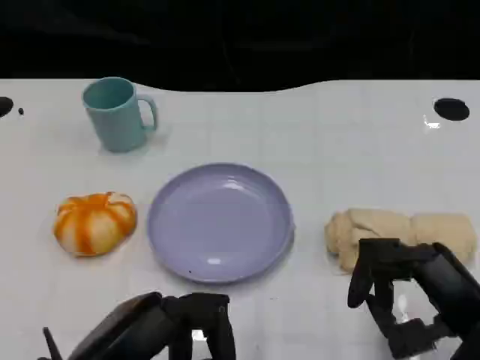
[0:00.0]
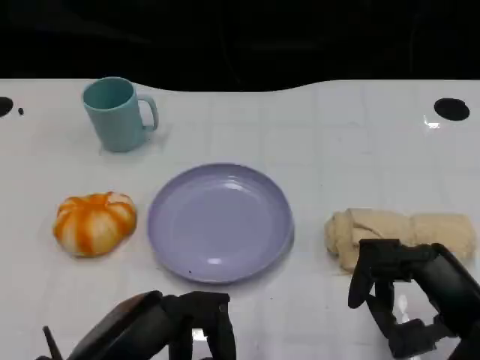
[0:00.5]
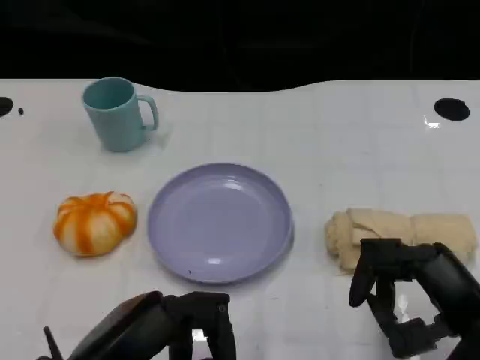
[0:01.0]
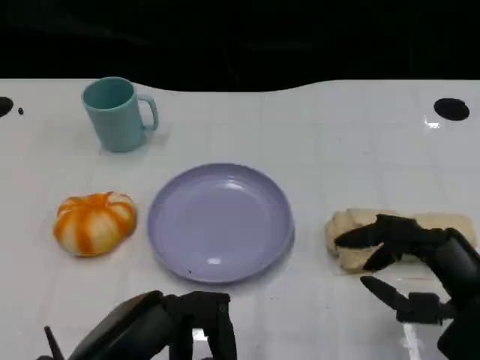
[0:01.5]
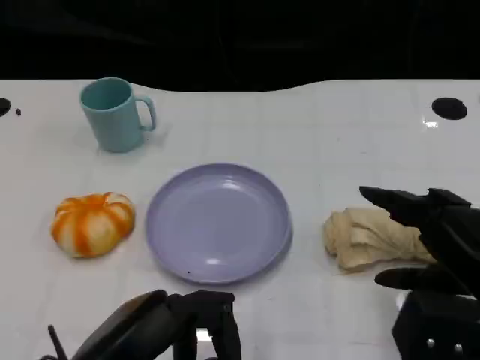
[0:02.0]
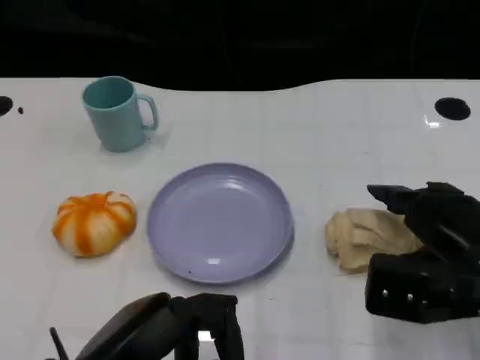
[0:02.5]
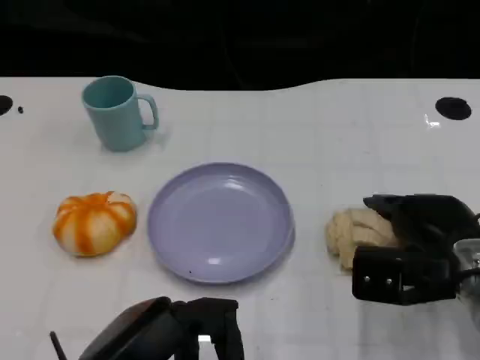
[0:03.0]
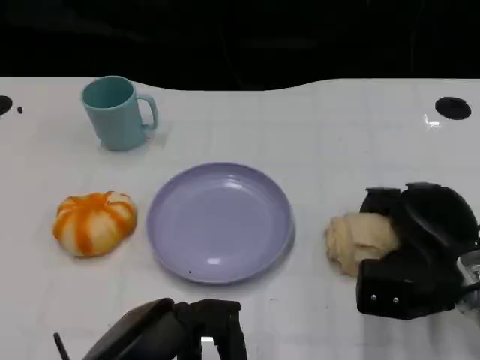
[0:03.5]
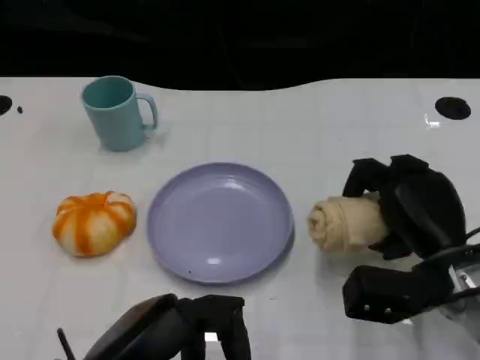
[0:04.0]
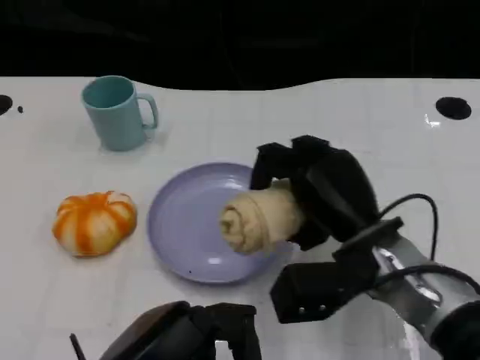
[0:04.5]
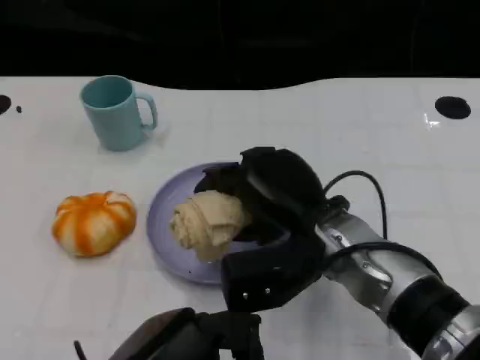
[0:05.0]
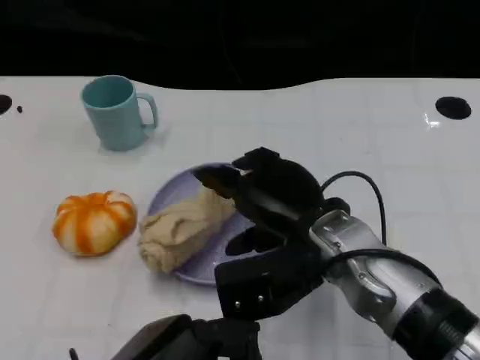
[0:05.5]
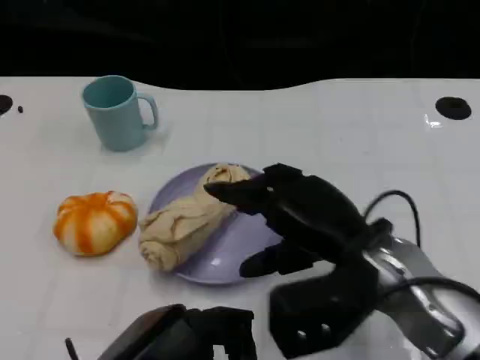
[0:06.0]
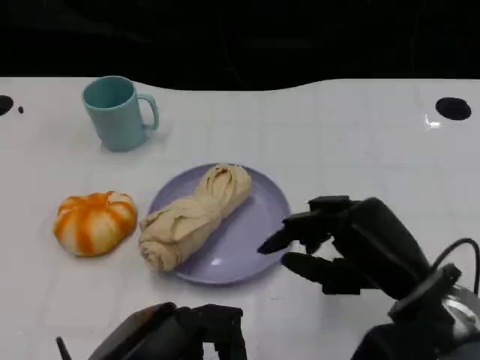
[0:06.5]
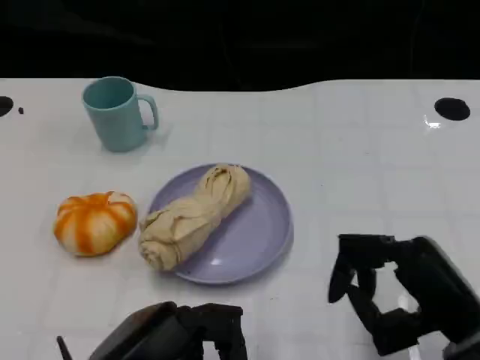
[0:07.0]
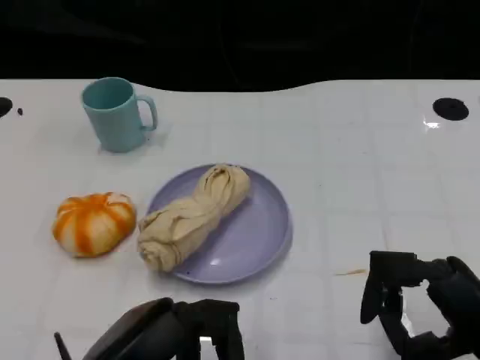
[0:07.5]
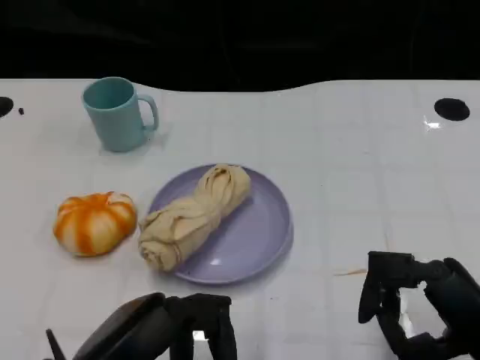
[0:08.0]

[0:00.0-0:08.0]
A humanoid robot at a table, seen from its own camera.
Task of the whole recording: Grasp the towel on the left side of the plate with the left hand and place it into the plate.
0:02.0 to 0:04.0: The right hand is displaced forward and downward by about 10 cm.
0:04.0 to 0:06.0: The right hand goes roughly 10 cm to the left and upward.
0:06.0 to 0:08.0: The right hand heads to the right and backward, covering approximately 15 cm.

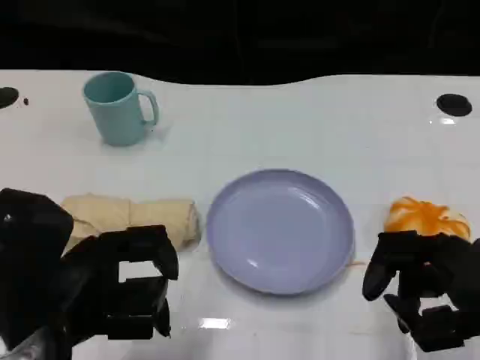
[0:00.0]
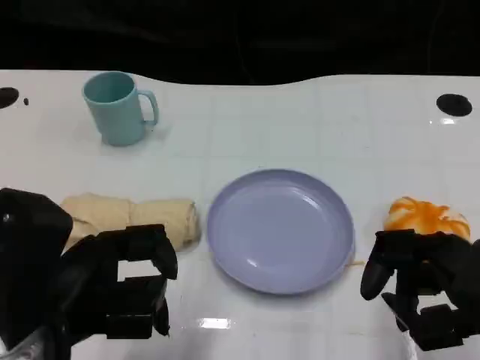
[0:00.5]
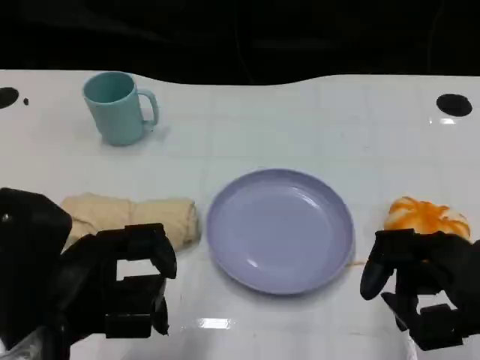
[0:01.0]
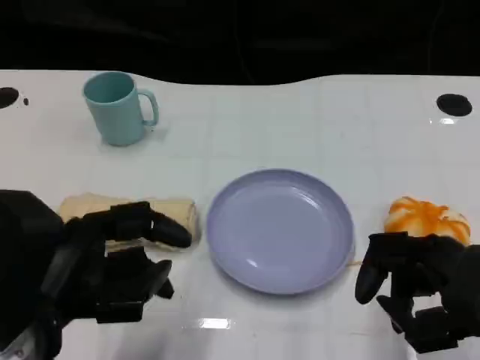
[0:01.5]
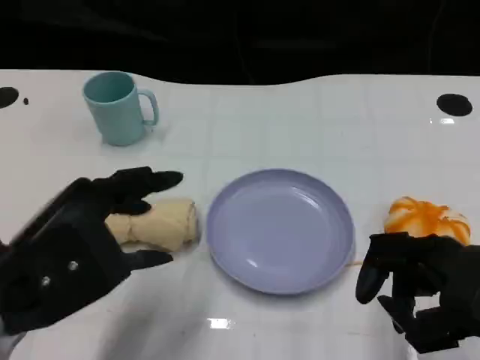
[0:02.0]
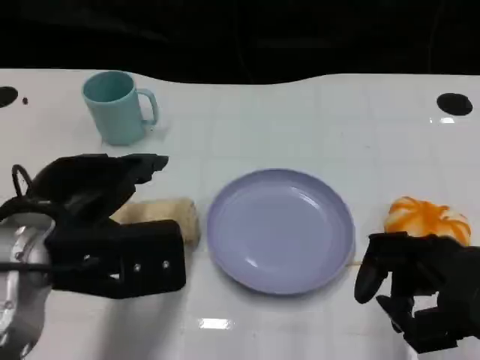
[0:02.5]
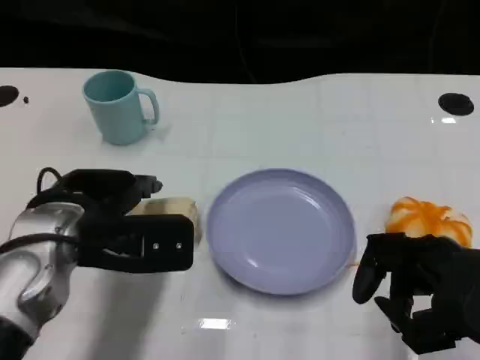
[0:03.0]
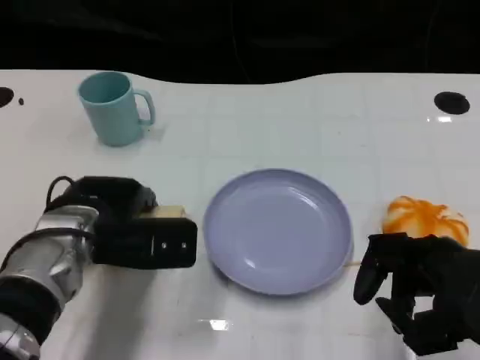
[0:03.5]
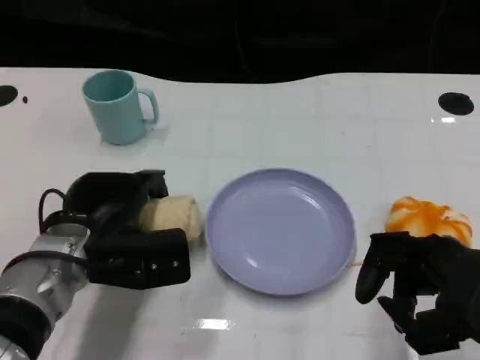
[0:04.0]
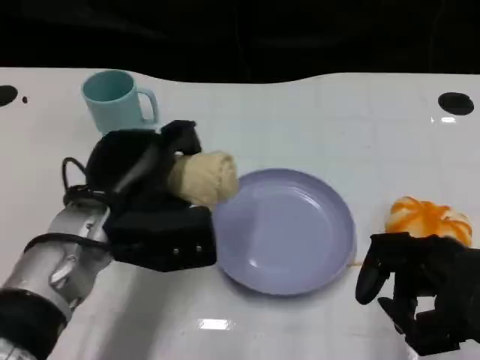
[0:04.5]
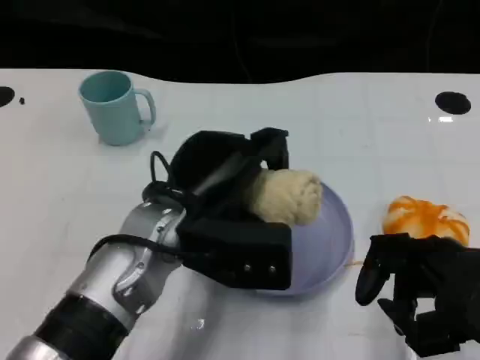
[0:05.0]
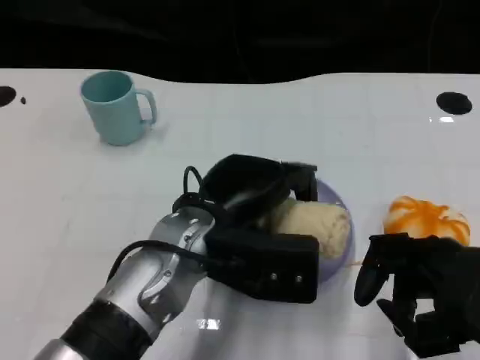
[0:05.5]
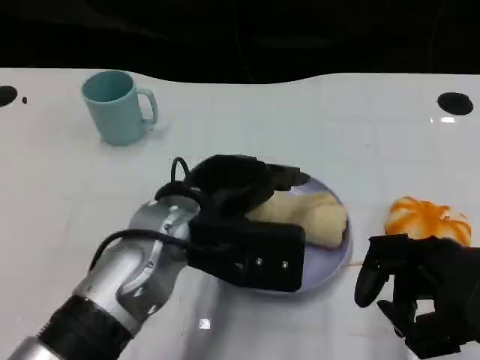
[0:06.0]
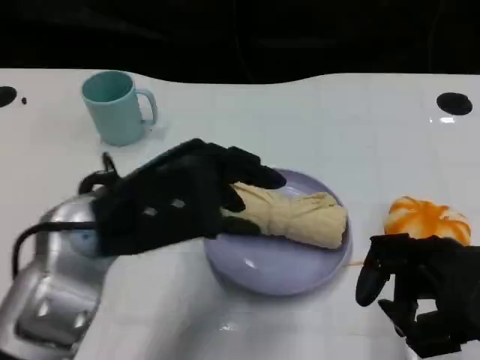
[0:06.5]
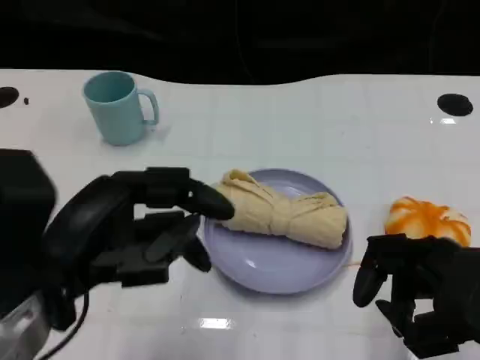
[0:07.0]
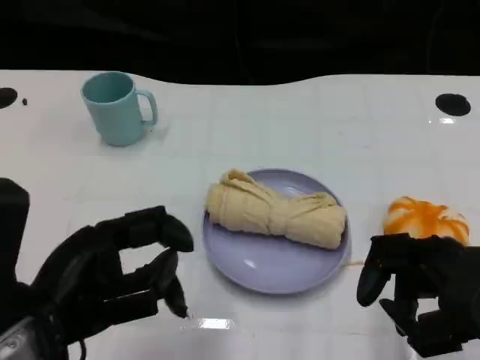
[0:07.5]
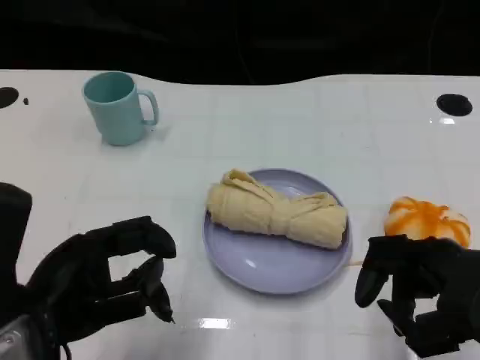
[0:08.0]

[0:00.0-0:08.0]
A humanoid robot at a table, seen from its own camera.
Task of the whole recording: Grasp the towel on the left side of the plate with the left hand and place it into the plate.
0:02.0 to 0:04.0: The left hand travels forward and downward by some 15 cm.
0:04.0 to 0:06.0: The left hand is displaced to the right and upward by about 10 cm.
0:06.0 to 0:08.0: The left hand shifts approximately 15 cm to the left and backward.

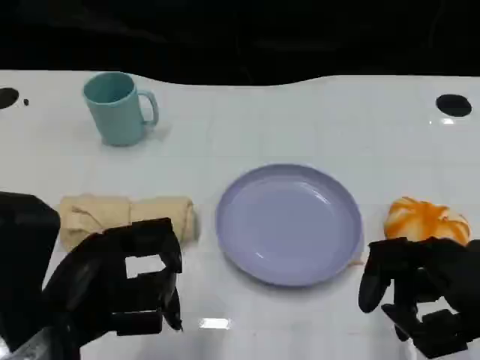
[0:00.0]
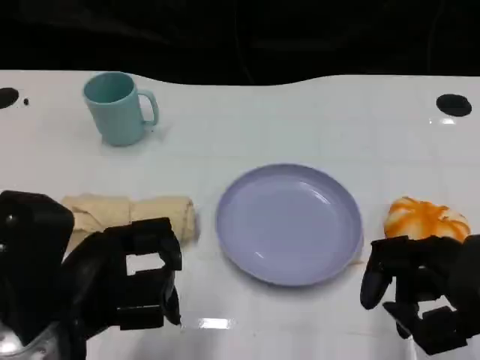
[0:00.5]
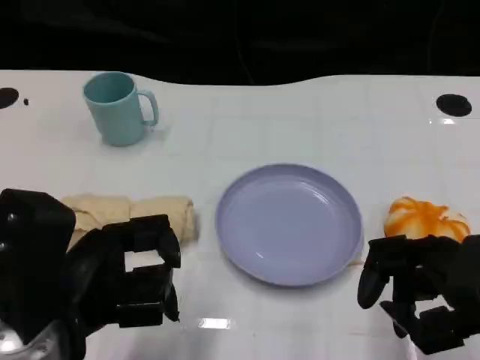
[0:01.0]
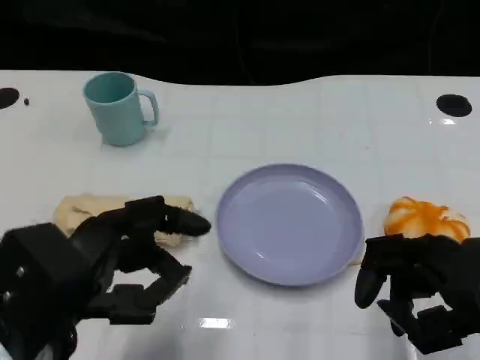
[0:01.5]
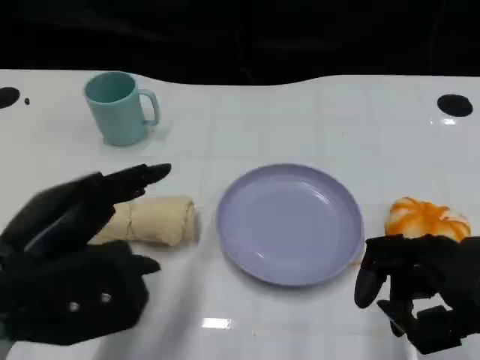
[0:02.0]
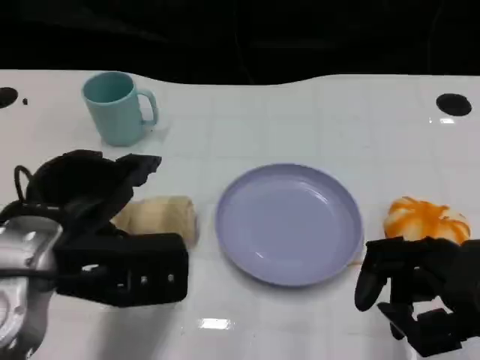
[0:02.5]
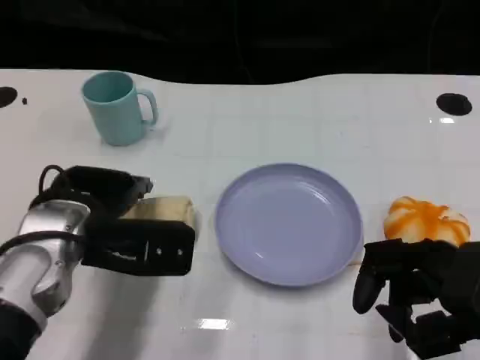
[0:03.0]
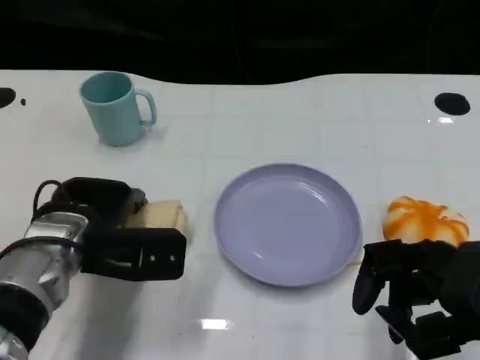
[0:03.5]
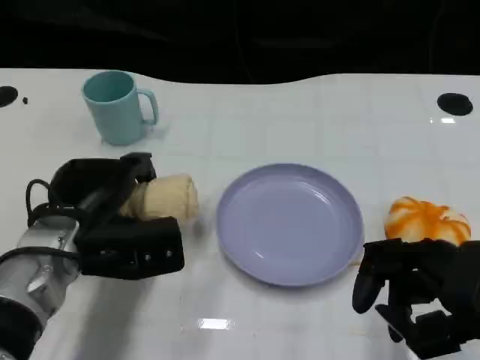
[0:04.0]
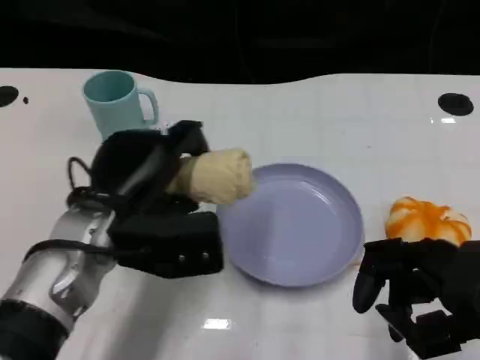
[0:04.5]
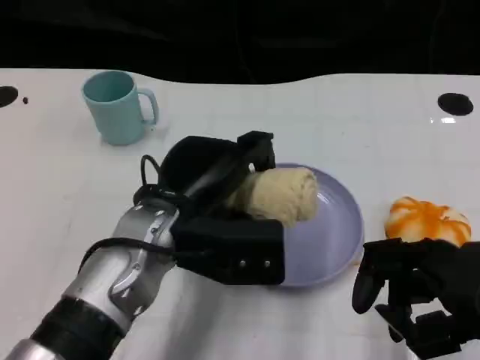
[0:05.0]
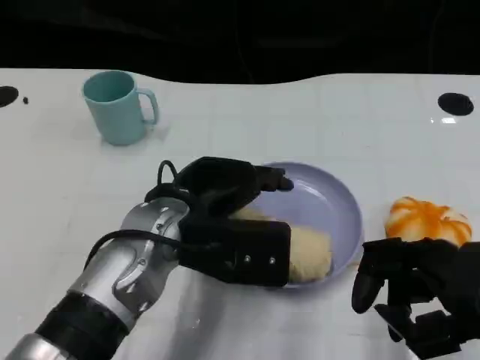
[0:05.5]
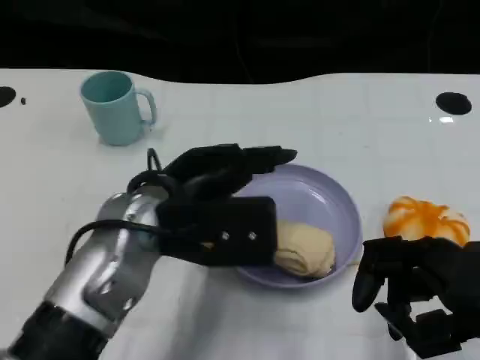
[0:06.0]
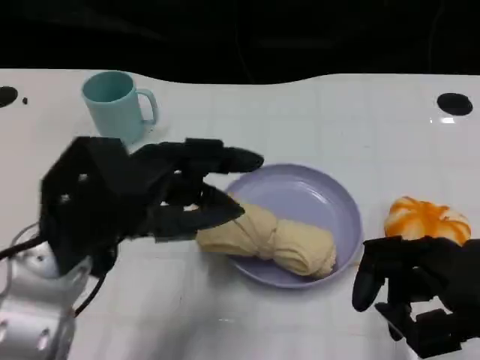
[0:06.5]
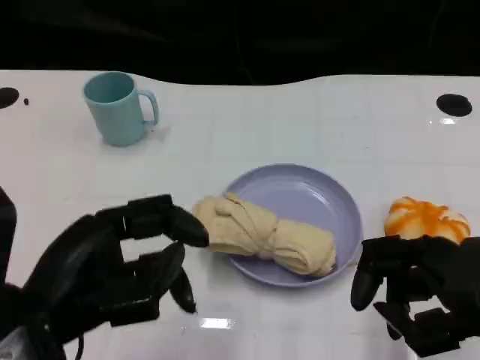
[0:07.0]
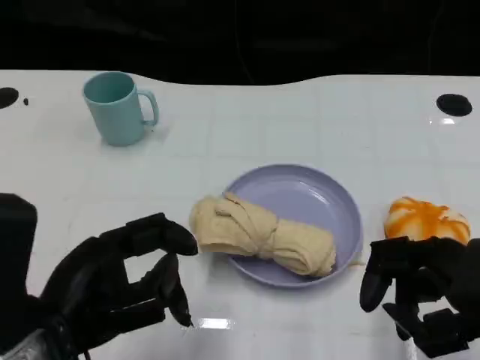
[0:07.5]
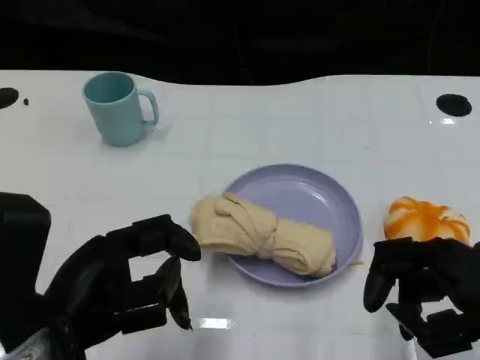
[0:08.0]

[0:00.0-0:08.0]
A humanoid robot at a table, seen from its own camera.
Task of the whole recording: Grasp the towel on the left side of the plate with the left hand and place it into the plate.
0:02.0 to 0:04.0: The left hand travels forward and downward by roughly 15 cm.
0:04.0 to 0:06.0: The left hand moves upward and to the right, approximately 10 cm.
0:06.0 to 0:08.0: The left hand is displaced backward and to the left by roughly 15 cm.
